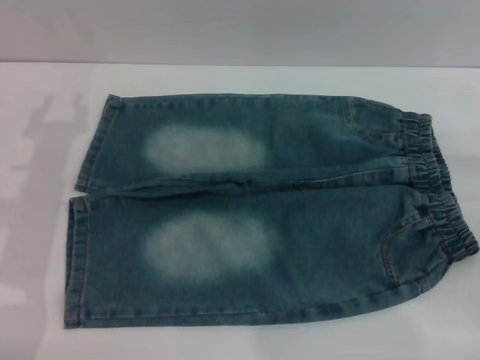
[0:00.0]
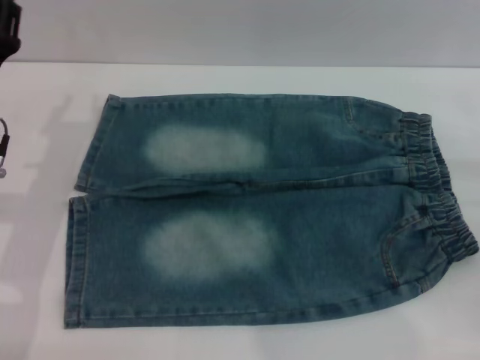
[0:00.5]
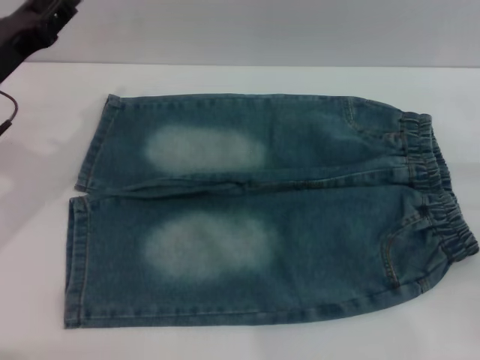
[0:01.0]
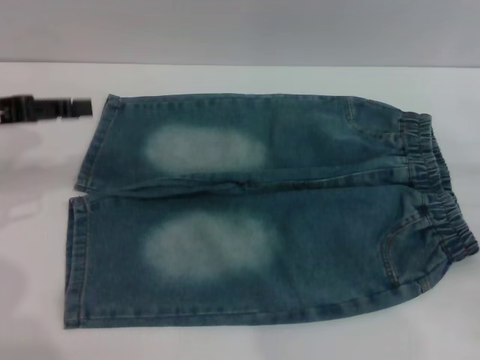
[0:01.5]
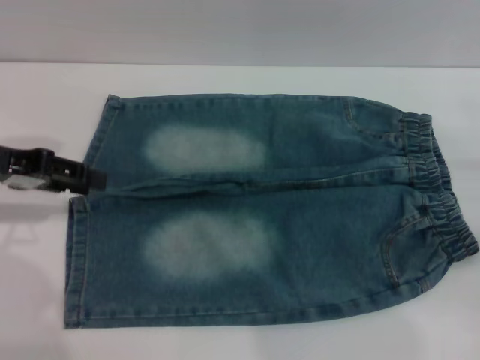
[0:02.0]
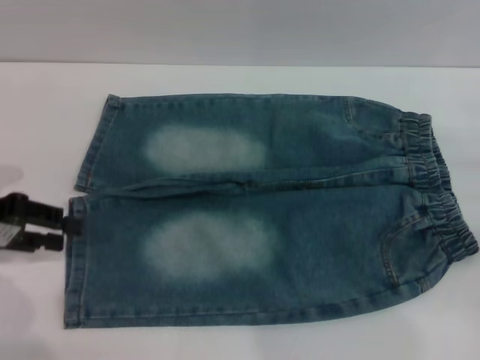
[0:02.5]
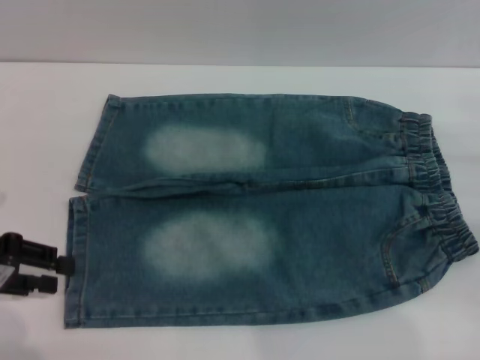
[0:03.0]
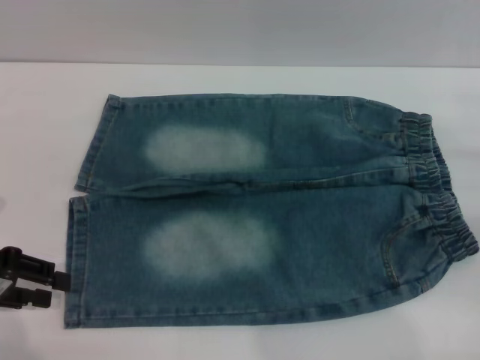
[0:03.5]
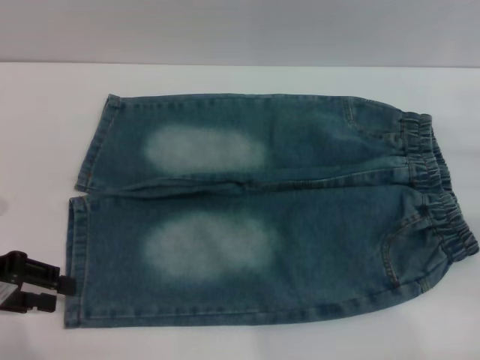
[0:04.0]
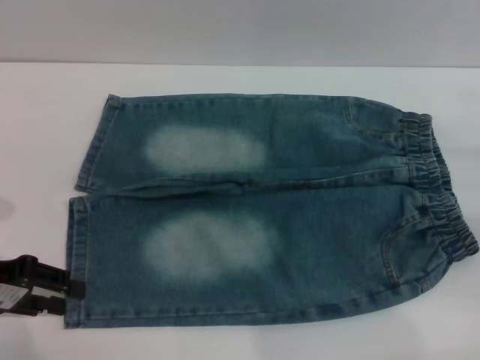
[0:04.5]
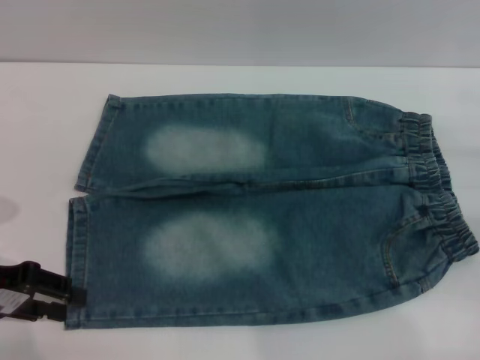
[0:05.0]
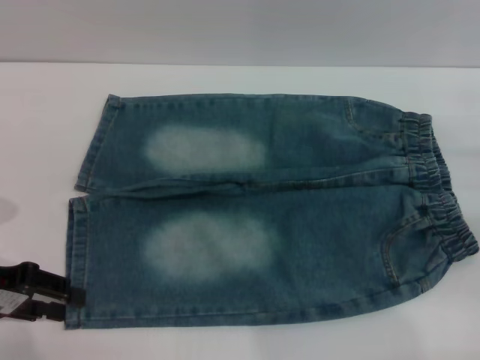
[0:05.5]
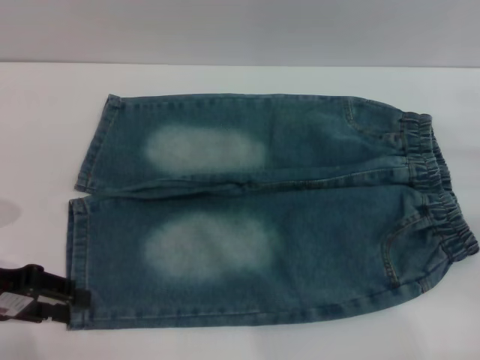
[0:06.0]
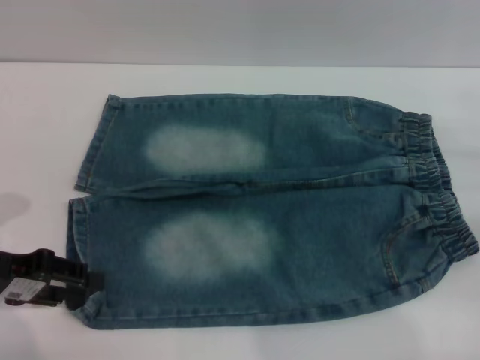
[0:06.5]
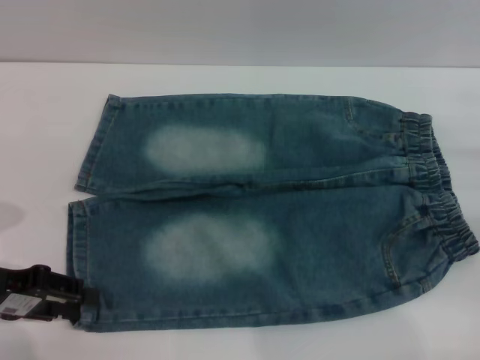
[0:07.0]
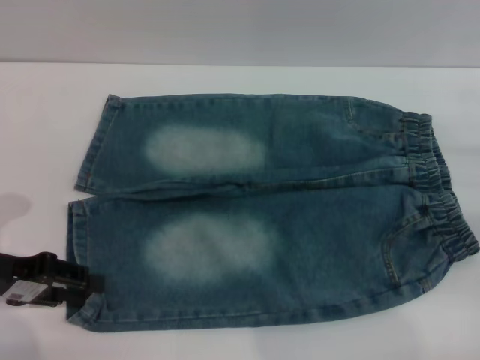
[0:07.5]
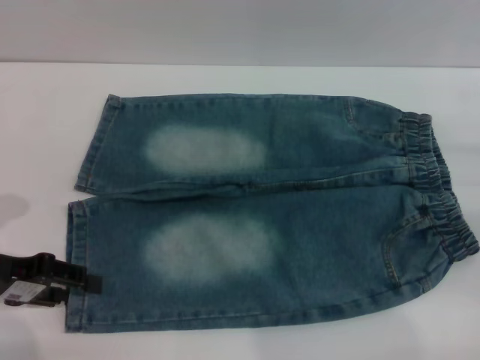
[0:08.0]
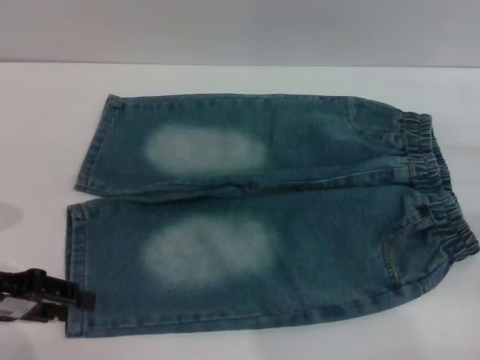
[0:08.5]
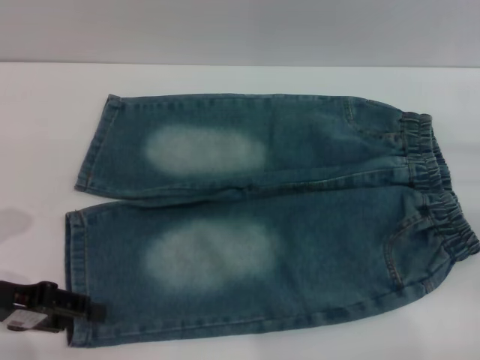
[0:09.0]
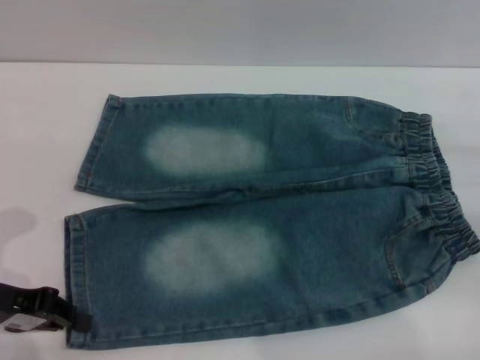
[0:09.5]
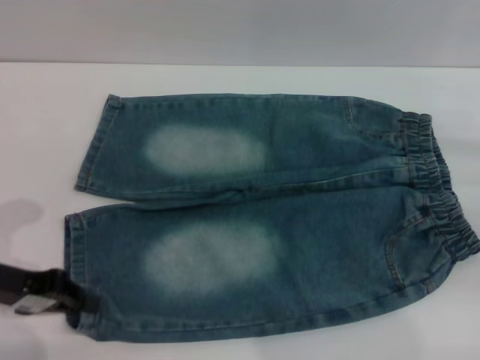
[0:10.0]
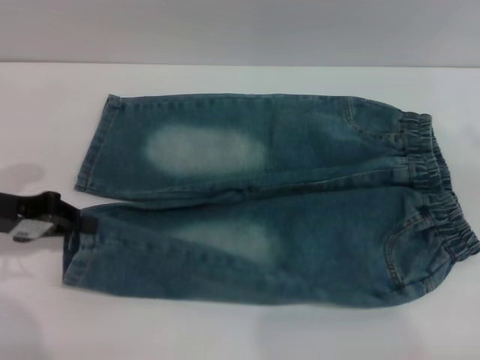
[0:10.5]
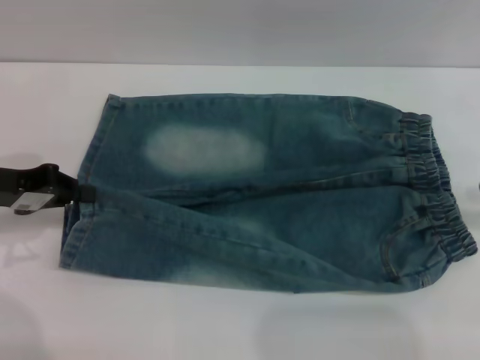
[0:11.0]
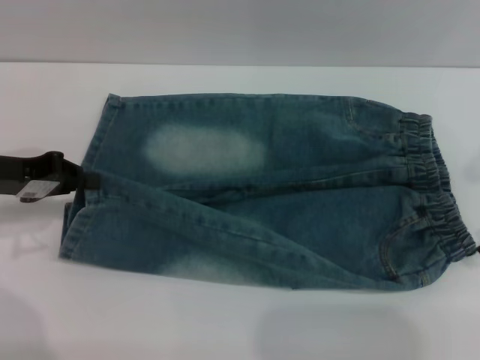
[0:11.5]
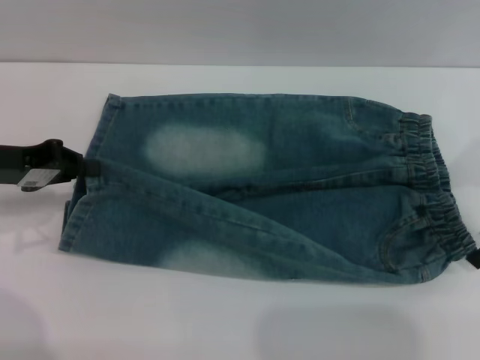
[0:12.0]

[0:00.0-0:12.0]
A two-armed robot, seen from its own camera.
0:00.0 to 0:02.0: The left gripper is displaced upward and to the left by roughly 10 cm.
0:02.0 to 0:04.0: The left gripper moves backward and downward, some 10 cm.
0:04.0 to 0:06.0: The grippers stay close to where they were, moving slightly.
0:06.0 to 0:08.0: Both grippers stay put.
0:08.0 to 0:10.0: The left gripper closes.
0:10.0 to 0:12.0: The left gripper is displaced forward by approximately 5 cm, while the right gripper heads upward and to the left, covering approximately 10 cm.

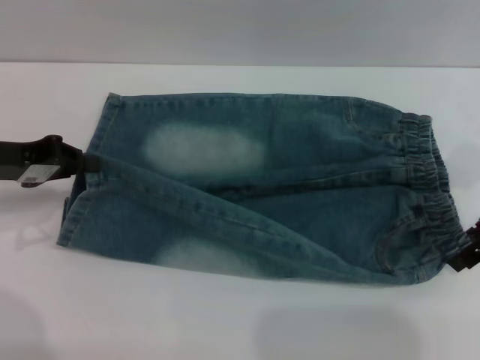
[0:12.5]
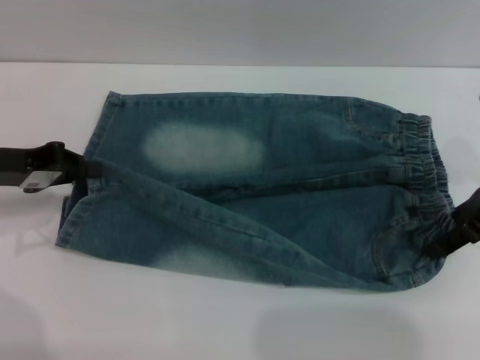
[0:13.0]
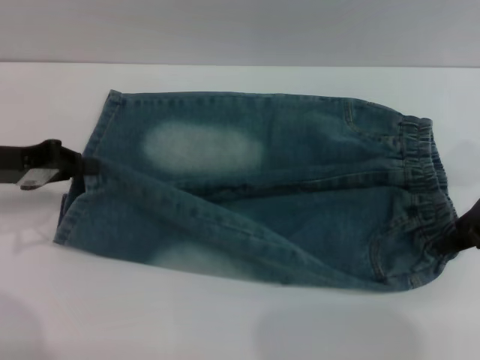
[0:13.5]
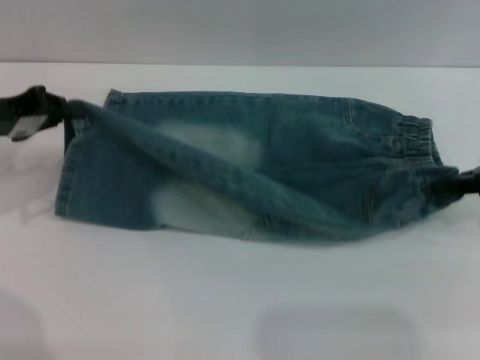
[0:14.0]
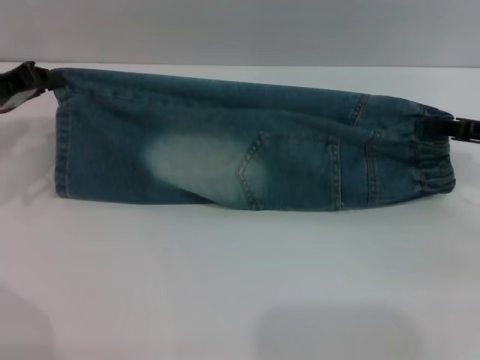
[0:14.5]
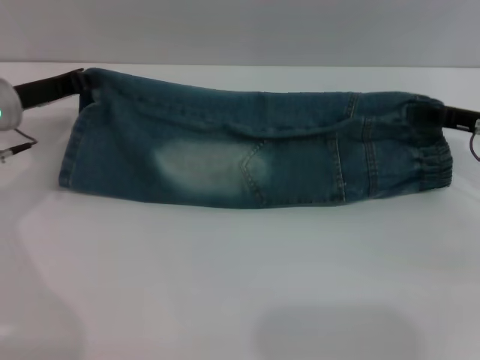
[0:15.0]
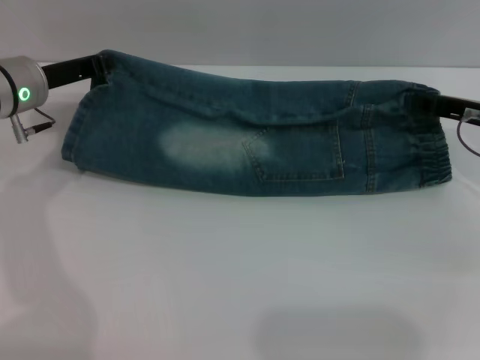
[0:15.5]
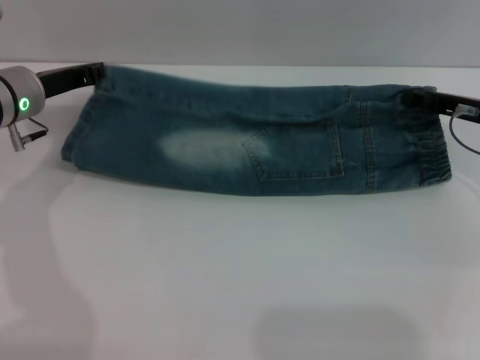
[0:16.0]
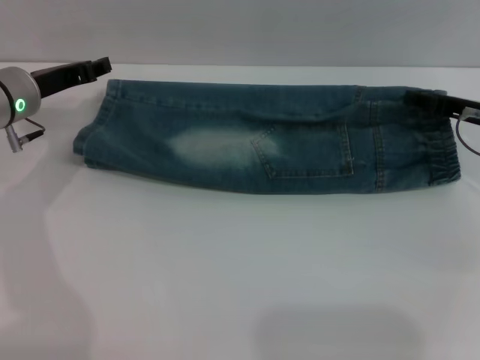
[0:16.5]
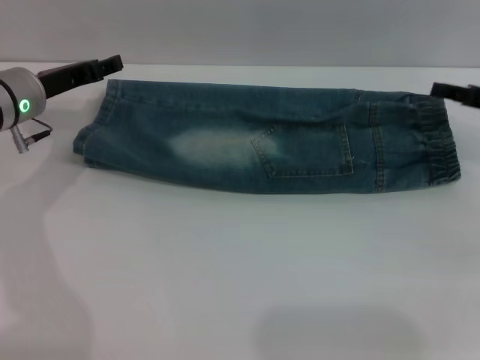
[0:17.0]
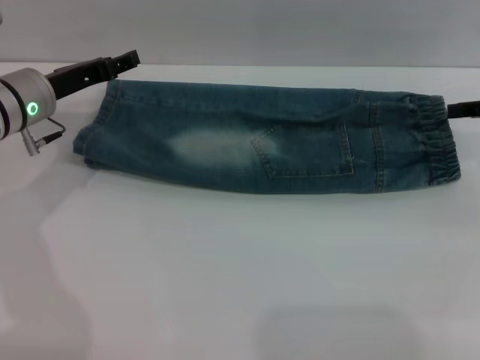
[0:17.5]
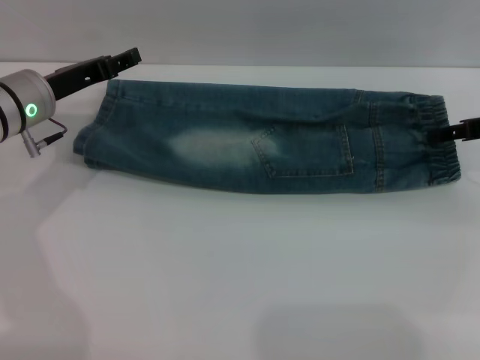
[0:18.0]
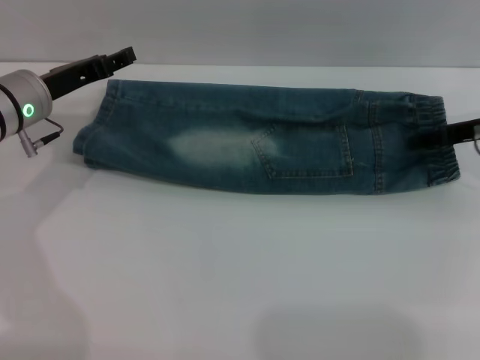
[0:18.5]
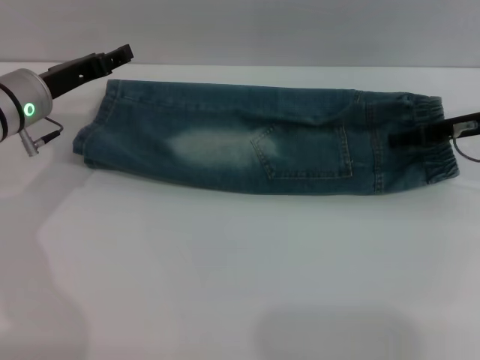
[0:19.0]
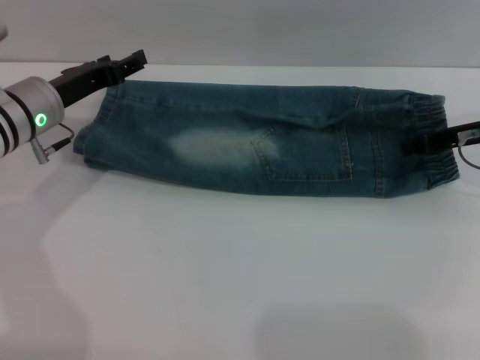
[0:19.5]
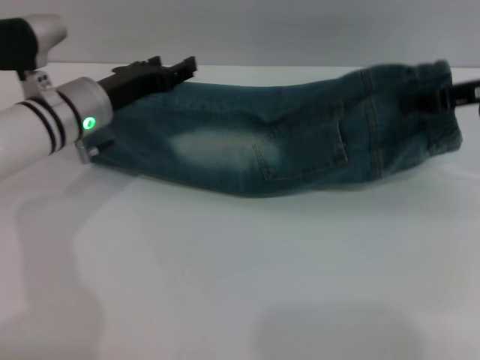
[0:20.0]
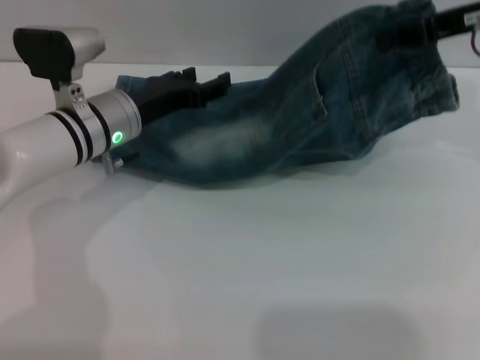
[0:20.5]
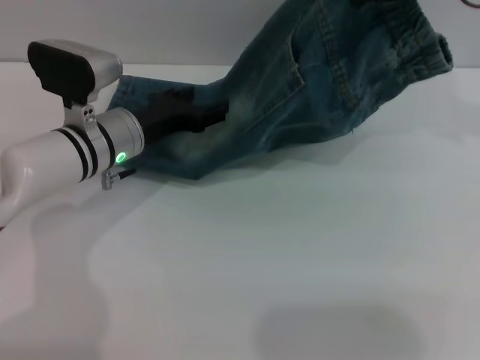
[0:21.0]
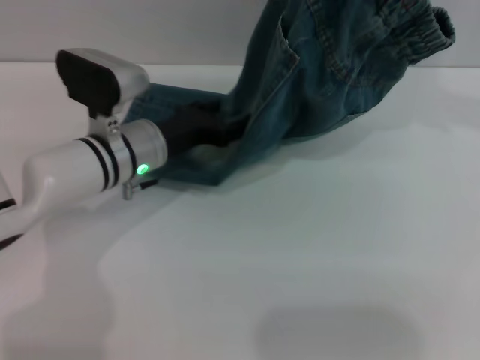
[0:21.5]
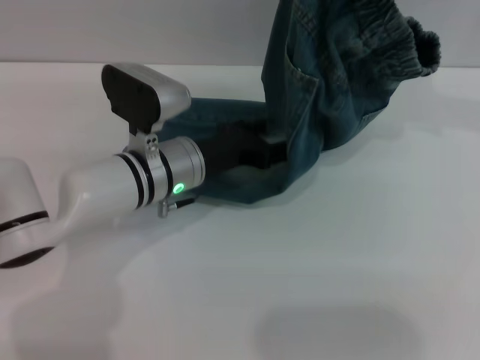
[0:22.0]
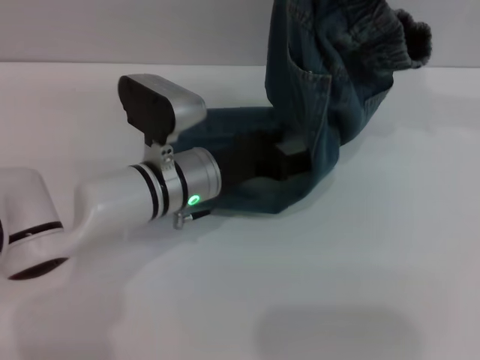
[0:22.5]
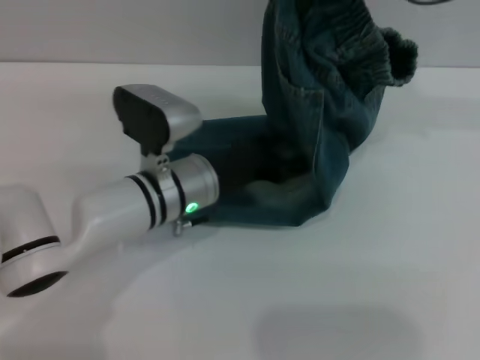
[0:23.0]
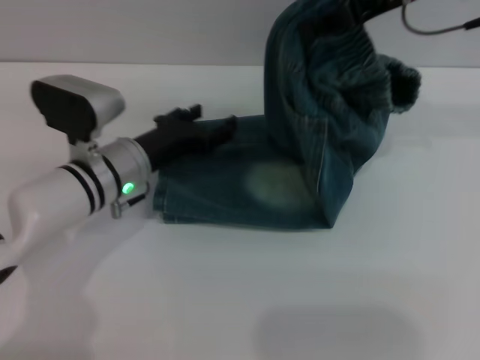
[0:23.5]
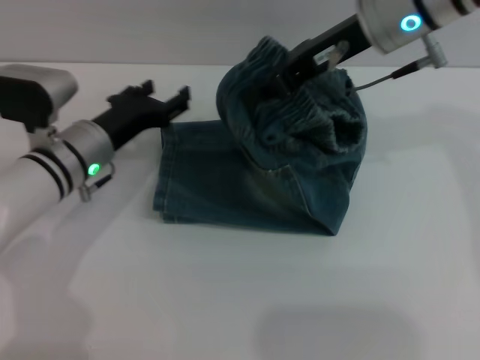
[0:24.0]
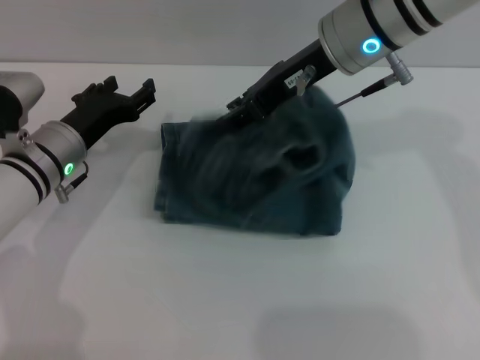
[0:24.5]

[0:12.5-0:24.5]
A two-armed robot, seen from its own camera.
Step, 0:12.5 to 0:17.5: Fold the bottom of the pants upward with both grippers.
0:12.5 to 0:14.5: The right gripper closes its fingers.
0:14.5 to 0:16.5: The right gripper changes place by roughly 5 cm, and opens up, while the left gripper heads to the right, covering approximately 5 cm, and opens its fingers.
0:16.5 to 0:18.5: The left gripper opens.
0:18.5 to 0:20.5: The left gripper travels to the right by about 10 cm; the right gripper travels upward by some 15 cm, and closes up.
0:20.5 to 0:22.5: The left gripper goes about 10 cm to the right. The right gripper travels to the left and upward by approximately 10 cm.
0:22.5 to 0:24.5: The left gripper travels to the left by some 15 cm, while the right gripper goes roughly 15 cm to the left and downward.

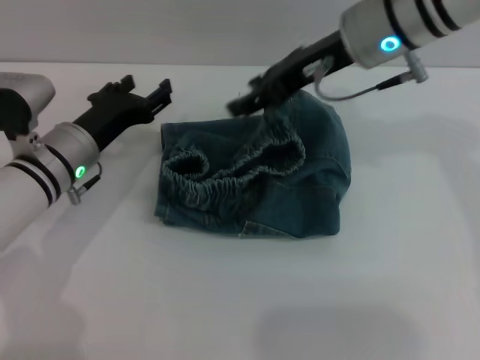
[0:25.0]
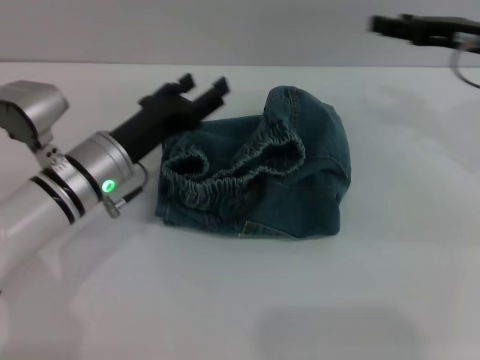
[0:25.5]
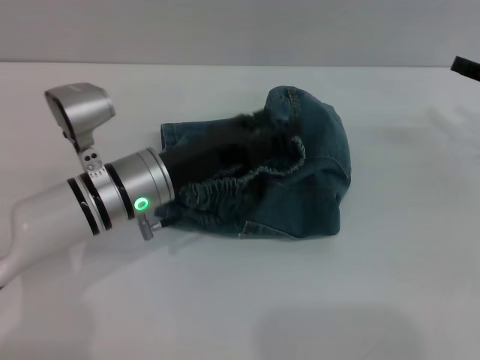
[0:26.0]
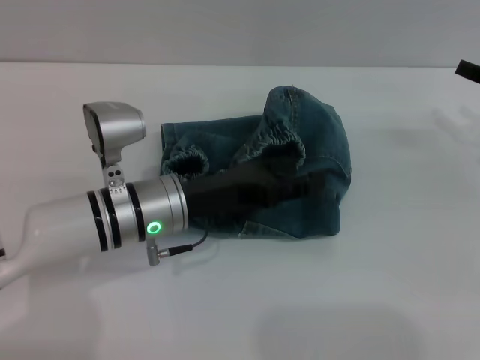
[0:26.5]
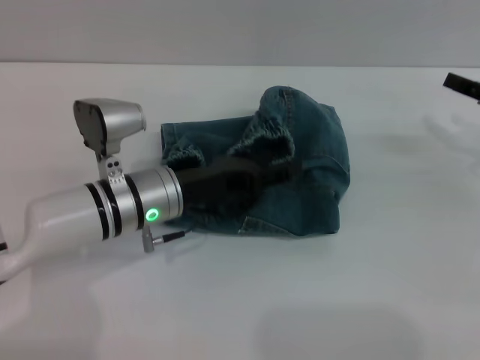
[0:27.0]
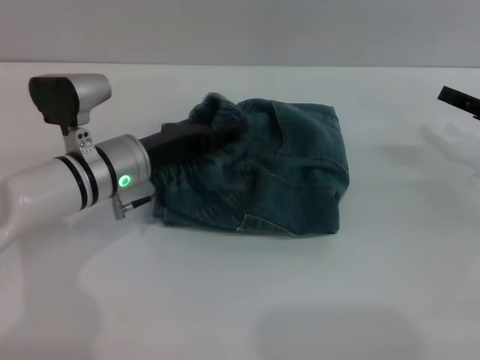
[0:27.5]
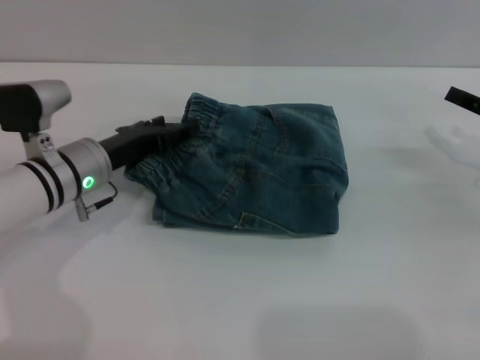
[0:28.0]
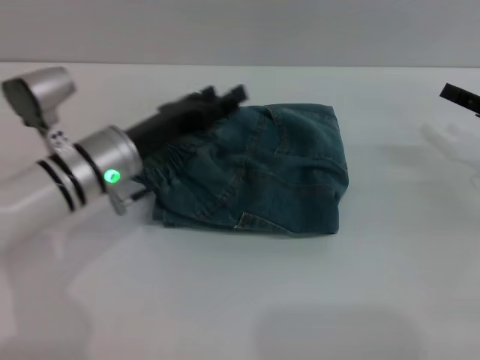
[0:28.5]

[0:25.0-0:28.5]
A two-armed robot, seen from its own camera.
0:25.0 to 0:27.0: The left gripper goes about 10 cm to the right; the right gripper goes about 25 cm to the right and downward.
